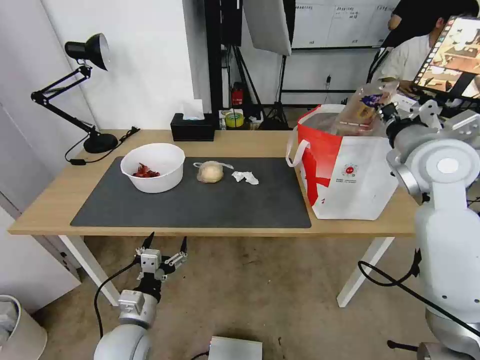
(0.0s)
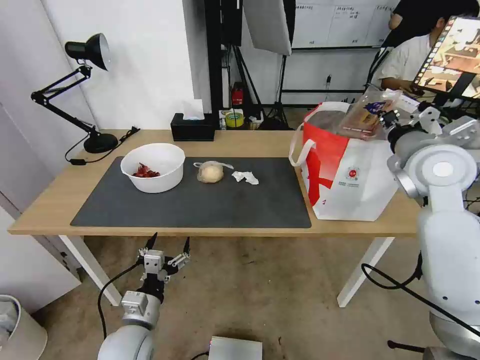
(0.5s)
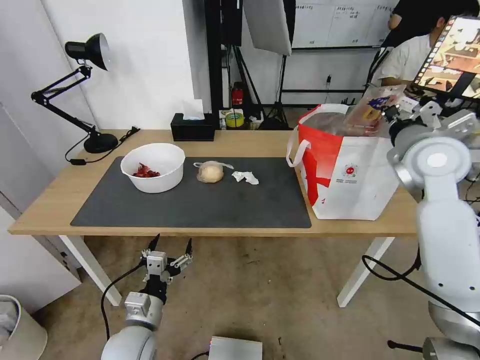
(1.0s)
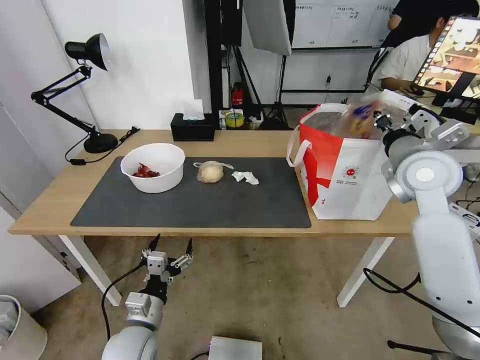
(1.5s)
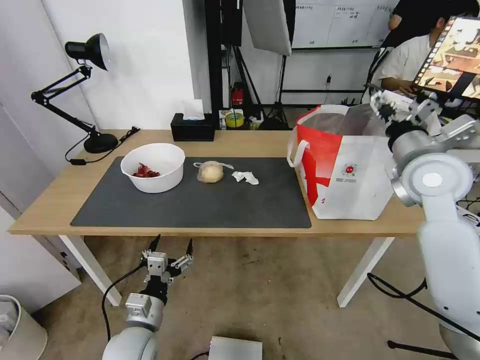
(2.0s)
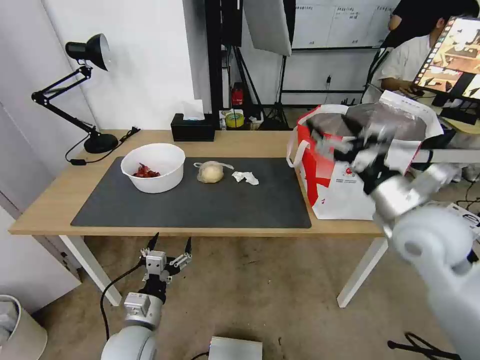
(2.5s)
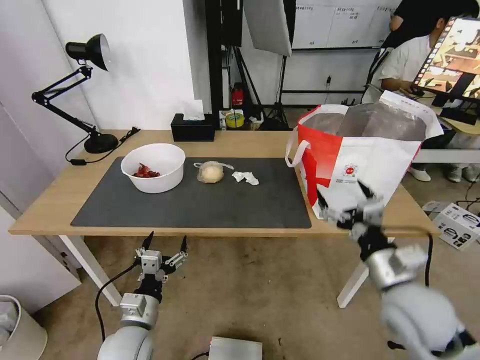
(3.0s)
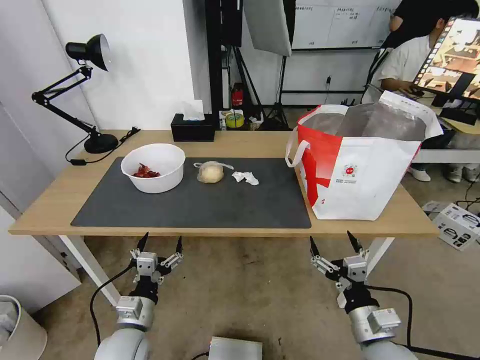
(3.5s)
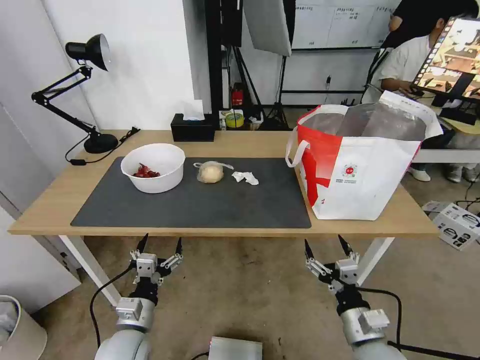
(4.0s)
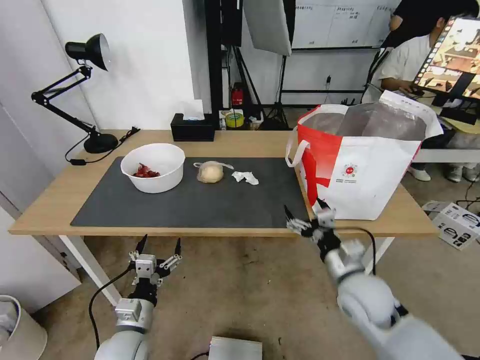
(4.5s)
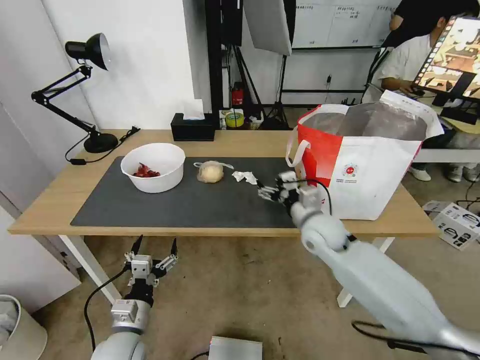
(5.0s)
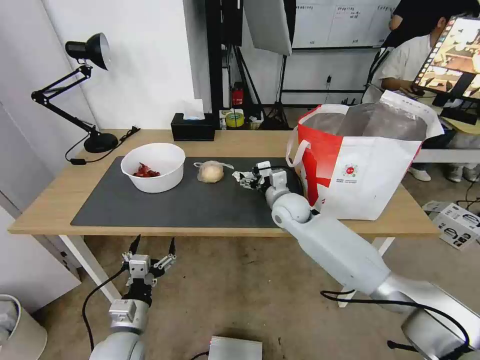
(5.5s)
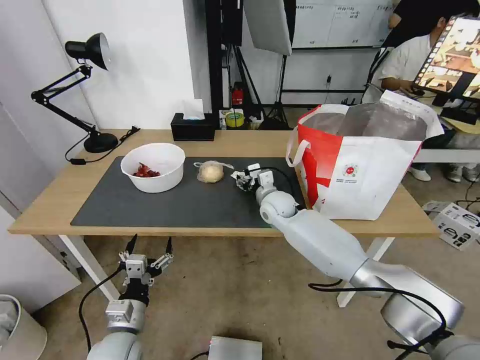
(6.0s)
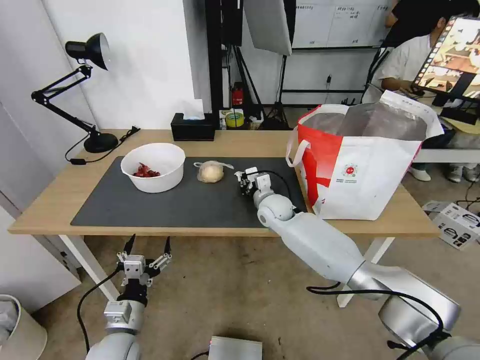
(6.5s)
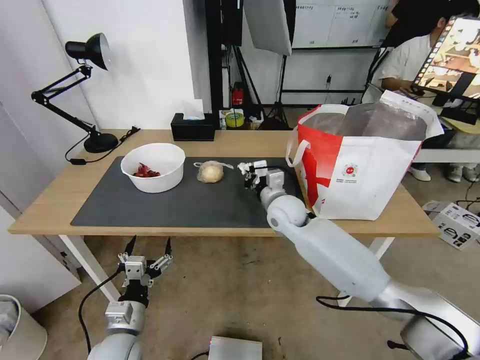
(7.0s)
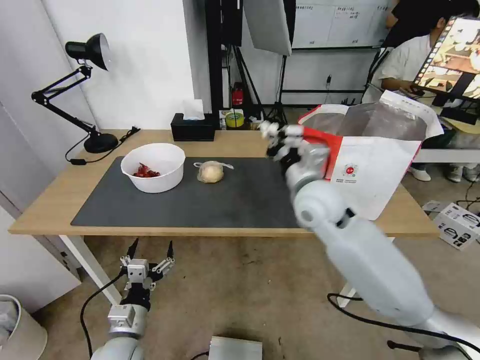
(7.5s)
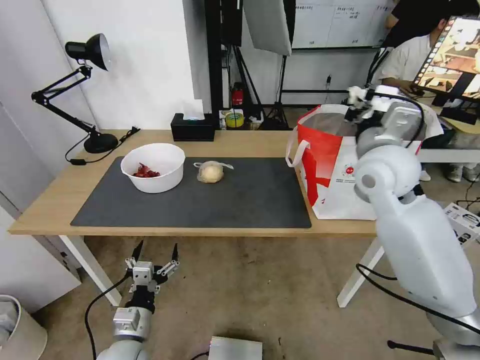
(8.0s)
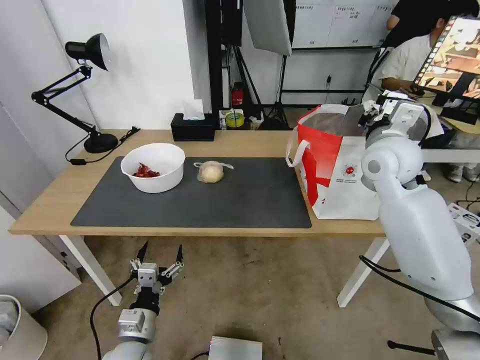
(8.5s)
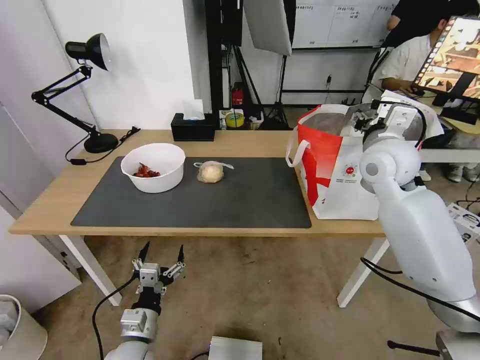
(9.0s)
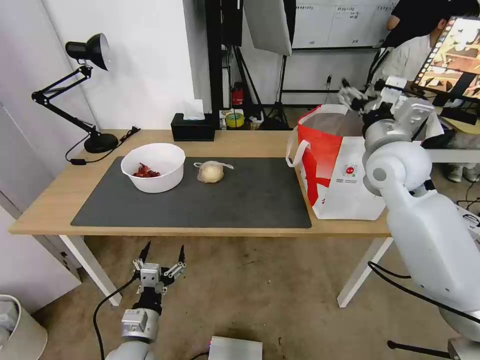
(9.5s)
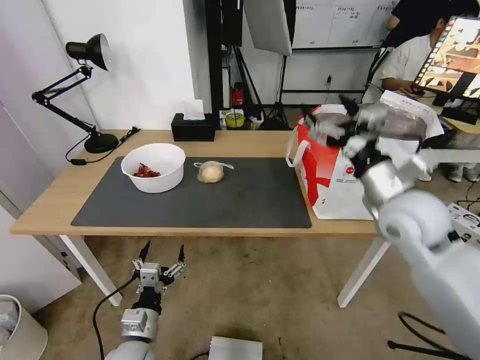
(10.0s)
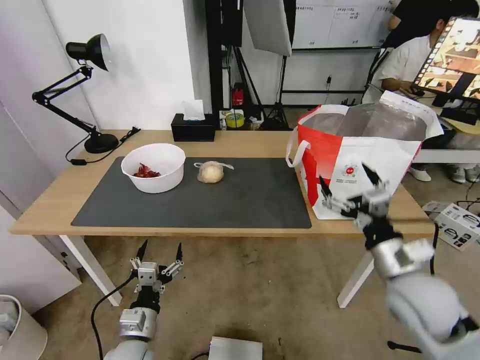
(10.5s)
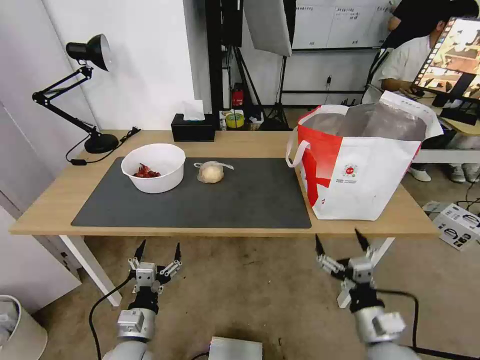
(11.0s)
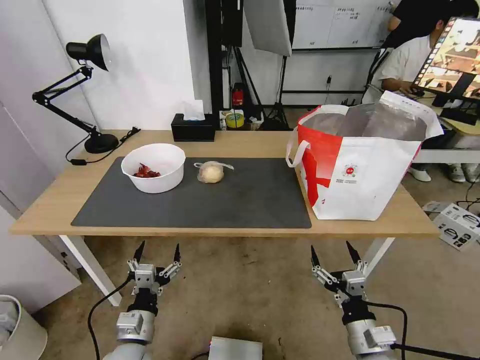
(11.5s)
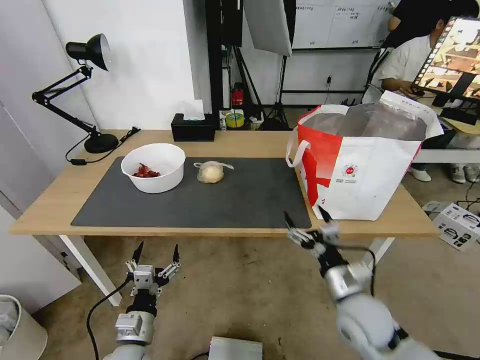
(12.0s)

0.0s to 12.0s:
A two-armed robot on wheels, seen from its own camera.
Task of the whole recording: Pick up the trash from the table and place it into the takeout bag.
0.0s to 2.0s: The right gripper opens up.
2.0s to 4.0s: The right gripper shifts roughly 35 cm downward and backward.
4.0s to 6.0s: The right gripper moves forward and to the left, about 40 cm.
6.0s to 8.0s: The right gripper shifts about 30 cm upward, to the right and backward, and closes up.
8.0s to 10.0s: The right gripper travels backward and downward by some 10 cm, and opens up.
10.0s to 12.0s: The right gripper travels downward and backward by approximately 20 cm.

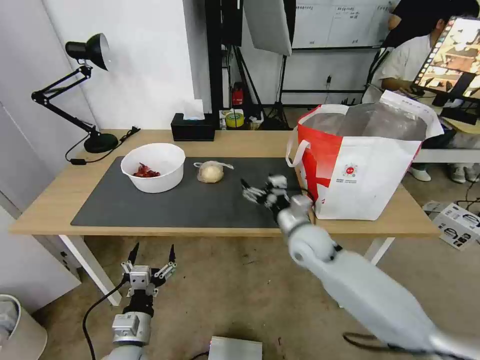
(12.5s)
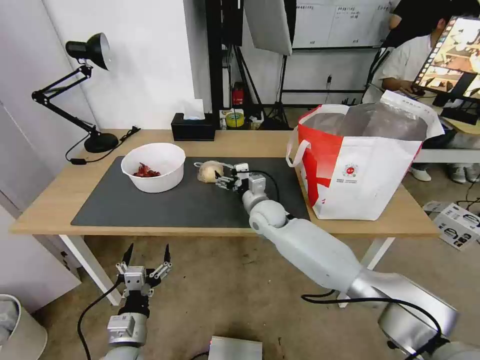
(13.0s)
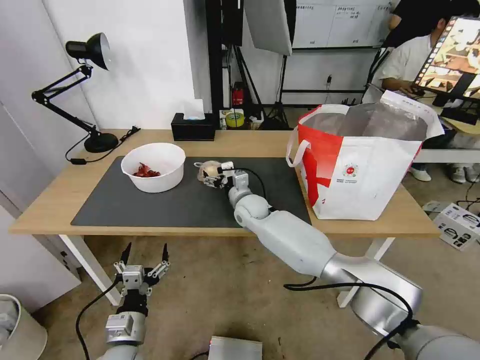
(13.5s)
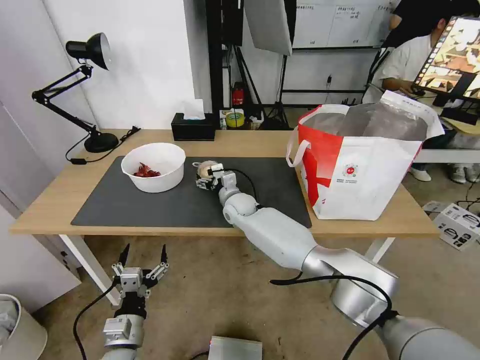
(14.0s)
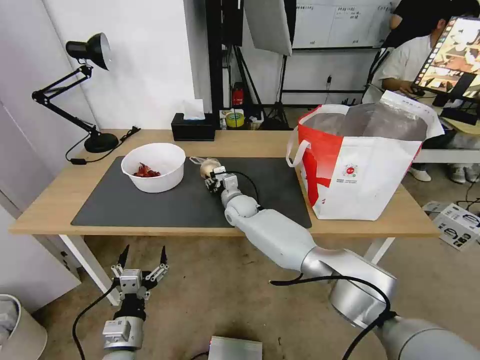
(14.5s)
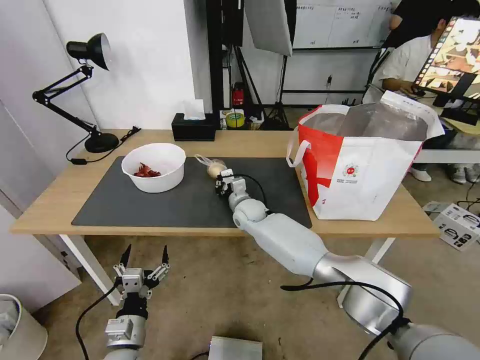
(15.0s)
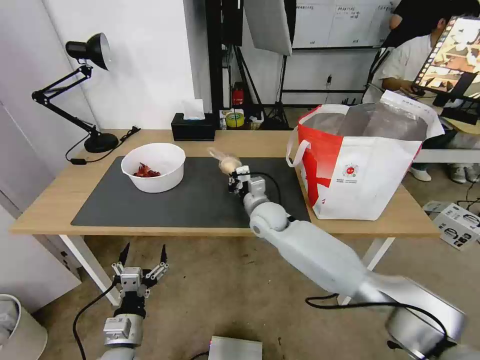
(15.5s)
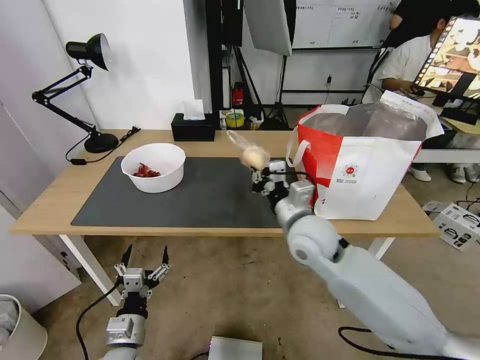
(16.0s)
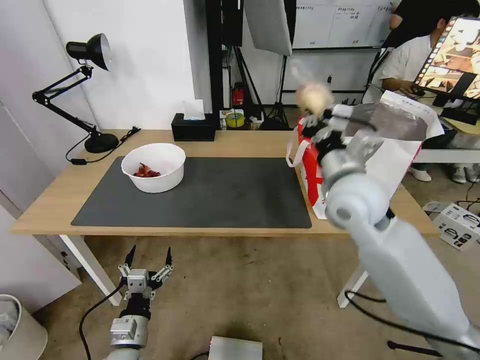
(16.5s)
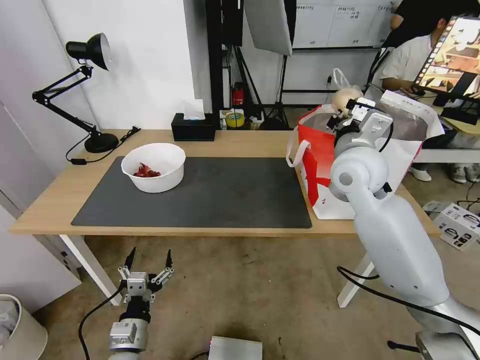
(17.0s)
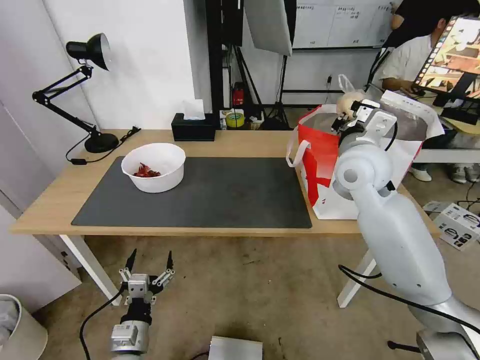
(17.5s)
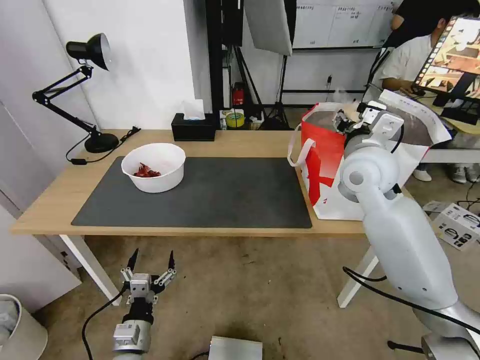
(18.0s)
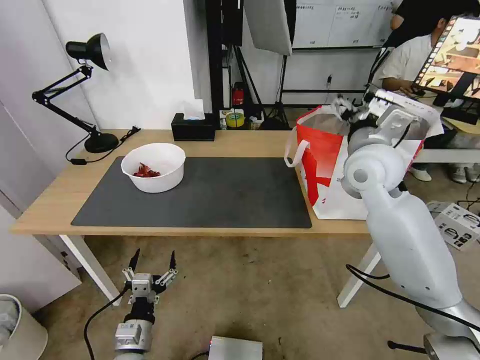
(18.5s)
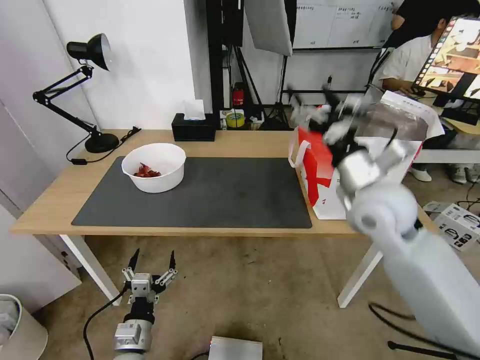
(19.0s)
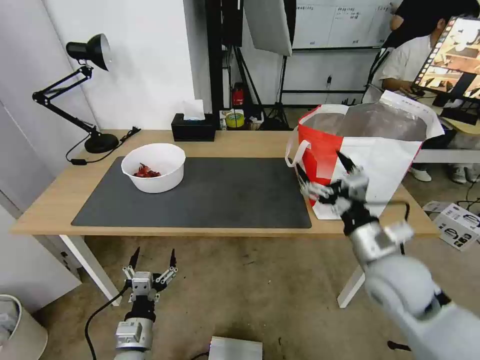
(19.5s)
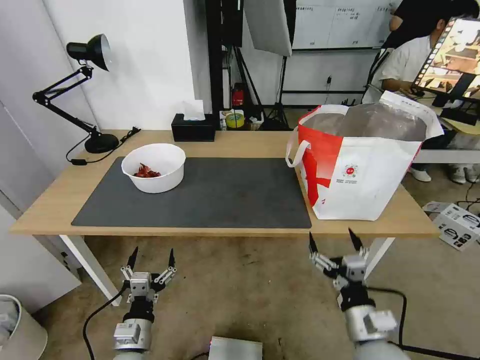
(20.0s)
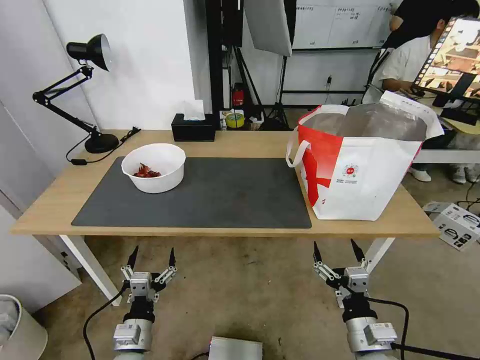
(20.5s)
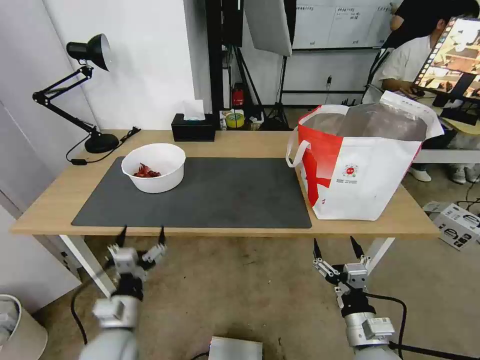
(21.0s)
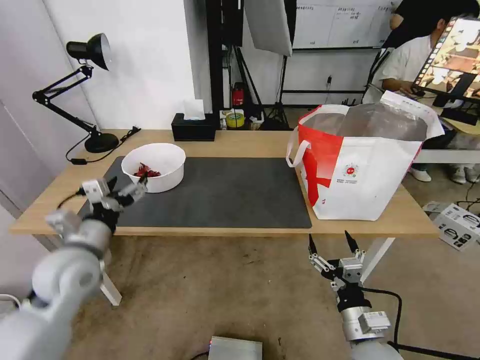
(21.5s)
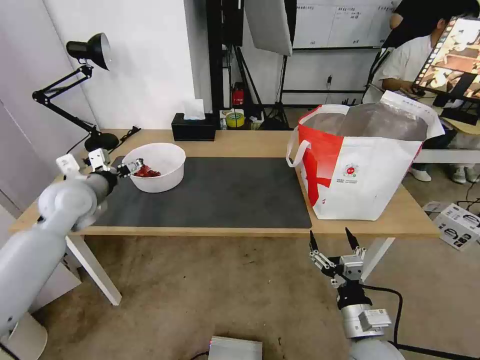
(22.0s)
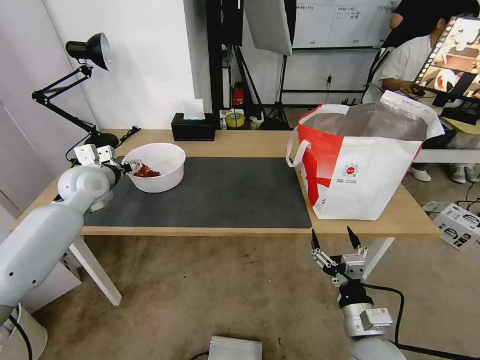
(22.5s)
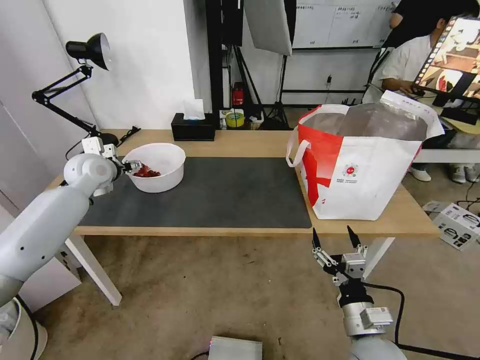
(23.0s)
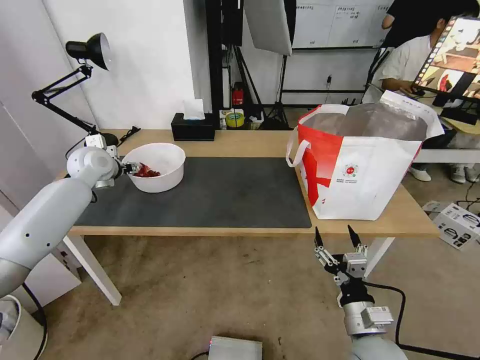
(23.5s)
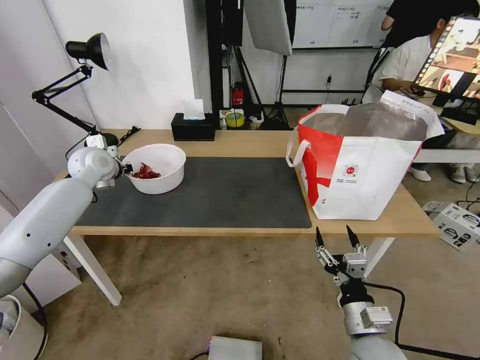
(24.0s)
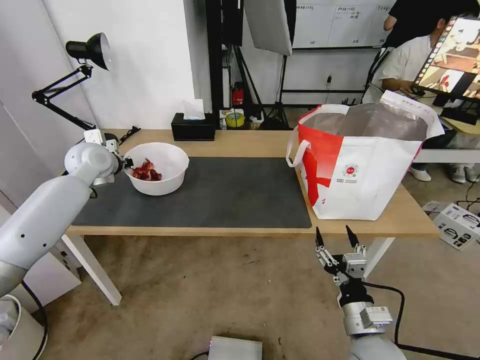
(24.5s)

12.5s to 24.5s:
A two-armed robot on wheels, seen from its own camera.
Task of the whole recording: Pick up the trash from the table and place it into the takeout bag.
12.5s to 14.5s: The right gripper moves to the left and forward, roughly 20 cm, and closes up.
14.5s to 16.5s: The right gripper moves upward, to the right and backward, about 35 cm, and closes up.
16.5s to 18.5s: The right gripper is displaced forward by about 5 cm, and opens its fingers.
18.5s to 20.5s: The right gripper goes roughly 40 cm backward and downward.
20.5s to 22.5s: The left gripper heads forward and upward, covering approximately 40 cm.
22.5s to 24.5s: The left gripper travels forward by some 5 cm, and closes.

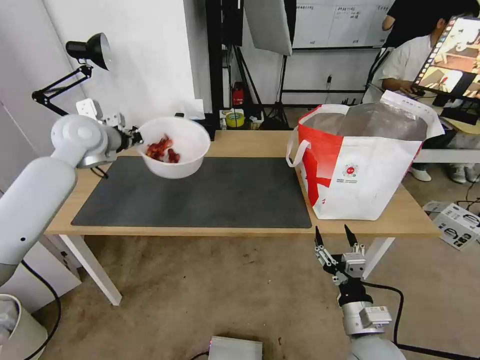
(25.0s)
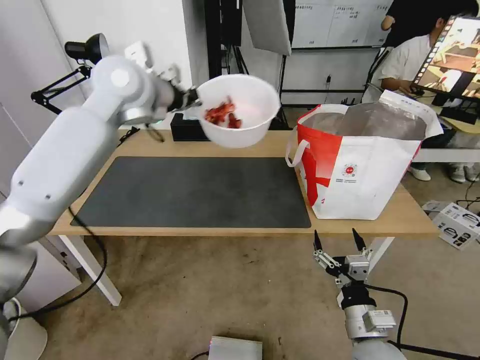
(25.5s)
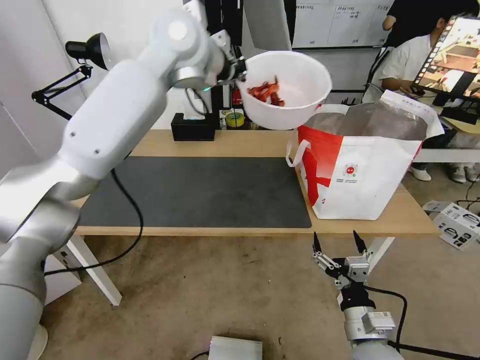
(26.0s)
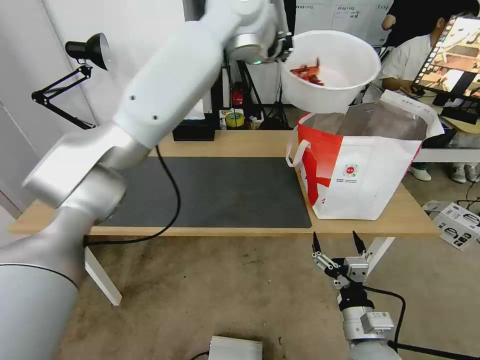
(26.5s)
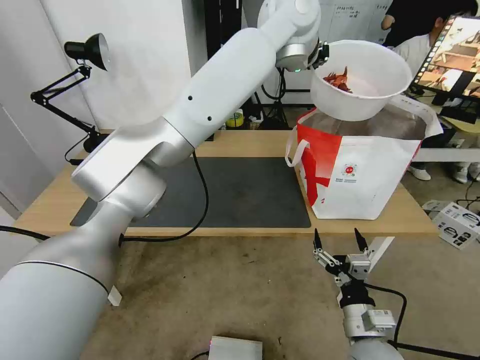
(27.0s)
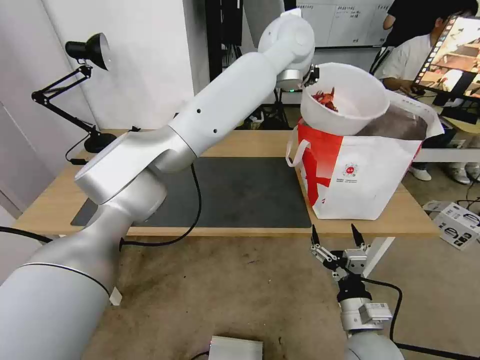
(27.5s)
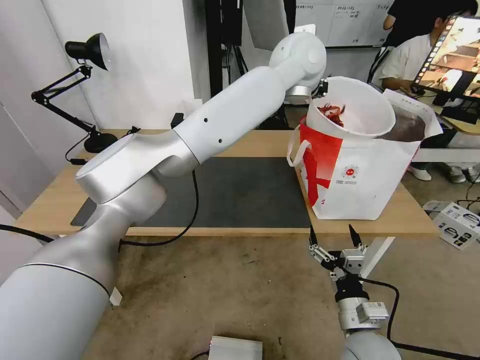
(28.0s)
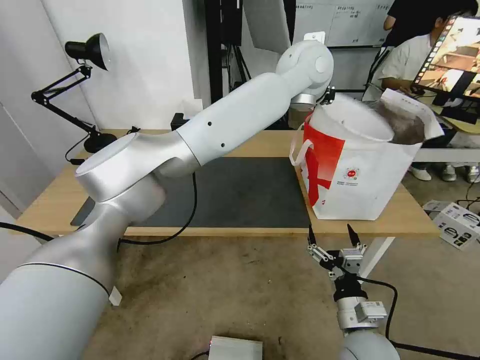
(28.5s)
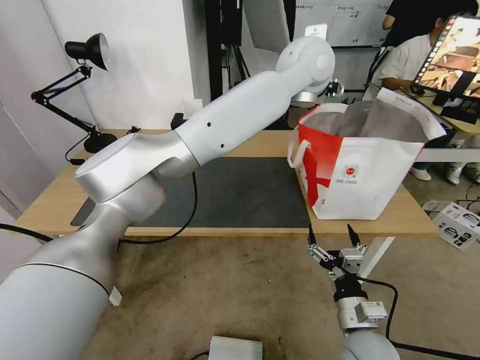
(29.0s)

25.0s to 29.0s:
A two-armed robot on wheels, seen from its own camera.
Task of the whole recording: Pick up the trash from the table and place it into the takeout bag.
25.0s to 27.0s: The left gripper travels to the right and upward by about 40 cm.
27.0s to 29.0s: The left gripper shifts approximately 5 cm downward, and opens up.
